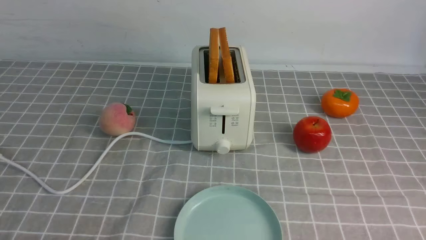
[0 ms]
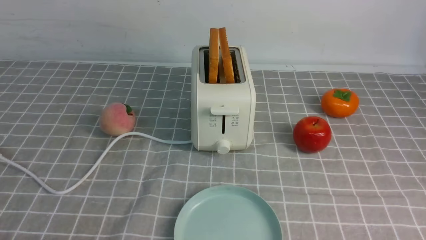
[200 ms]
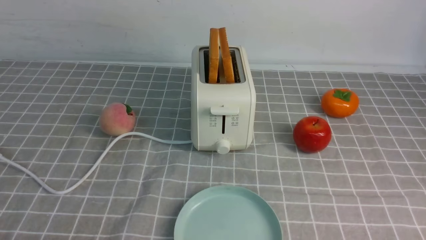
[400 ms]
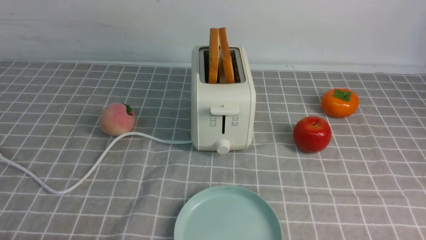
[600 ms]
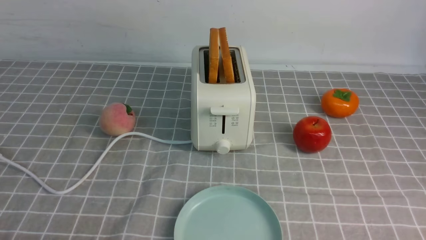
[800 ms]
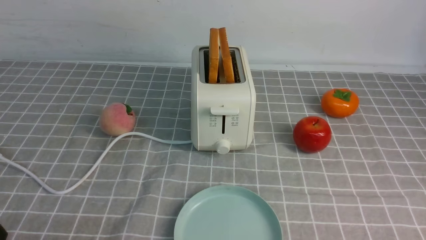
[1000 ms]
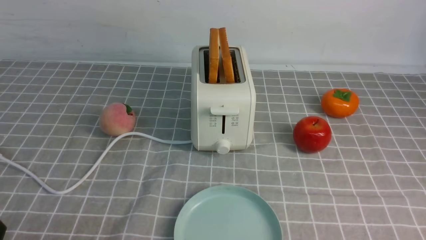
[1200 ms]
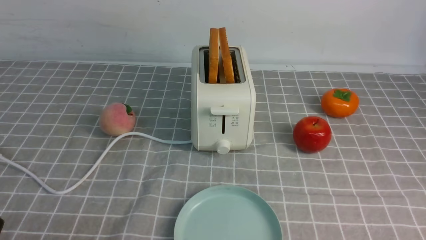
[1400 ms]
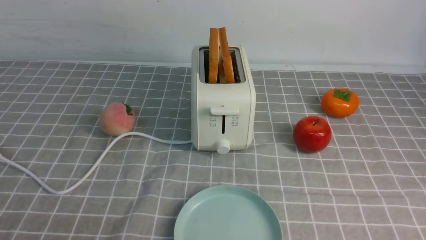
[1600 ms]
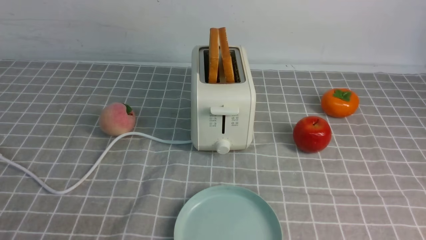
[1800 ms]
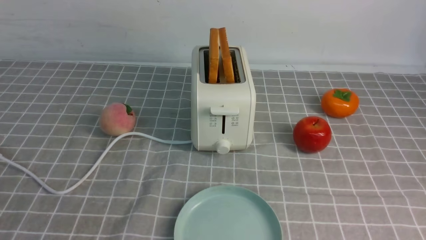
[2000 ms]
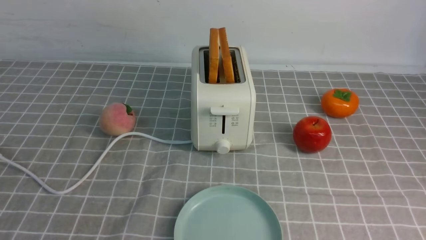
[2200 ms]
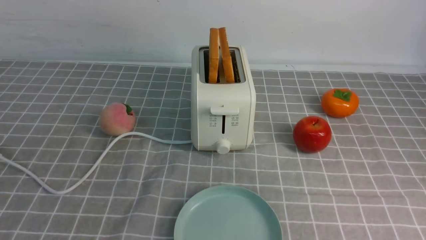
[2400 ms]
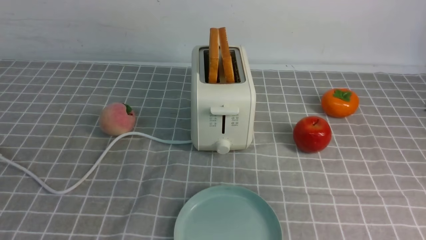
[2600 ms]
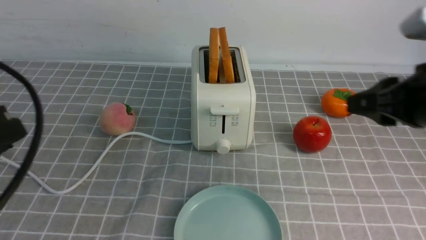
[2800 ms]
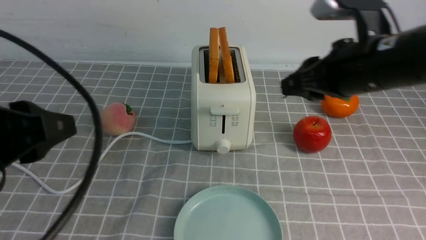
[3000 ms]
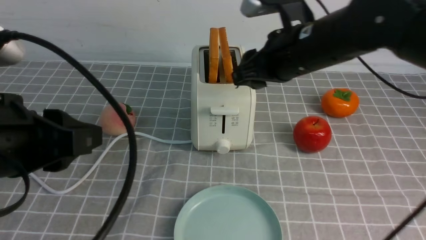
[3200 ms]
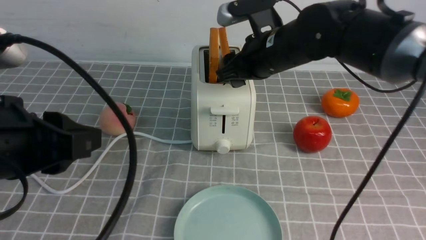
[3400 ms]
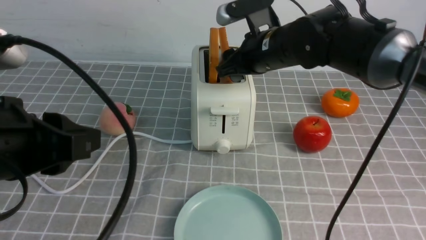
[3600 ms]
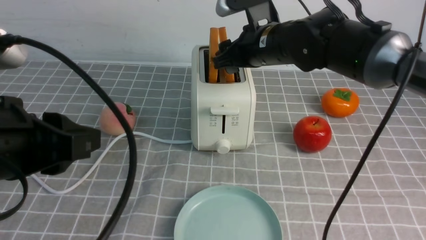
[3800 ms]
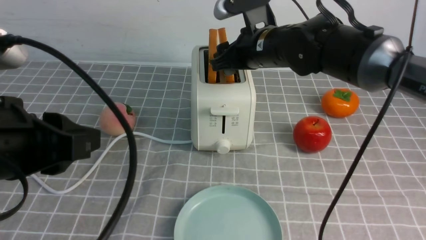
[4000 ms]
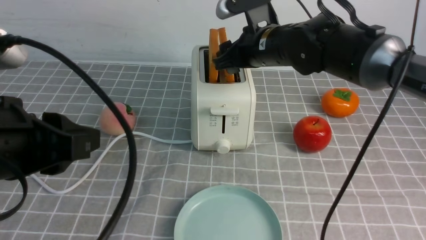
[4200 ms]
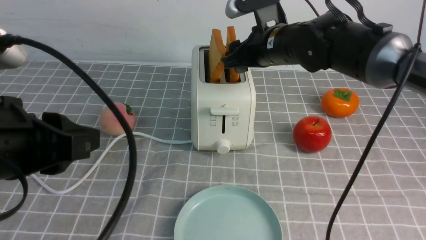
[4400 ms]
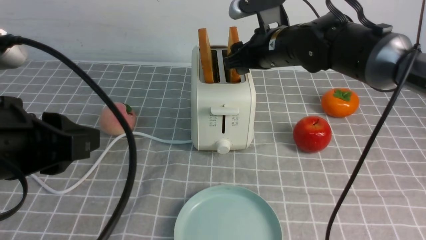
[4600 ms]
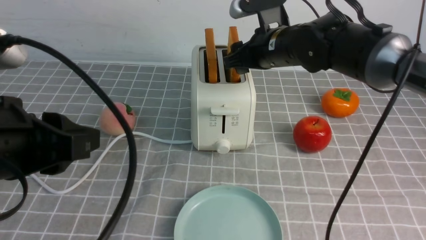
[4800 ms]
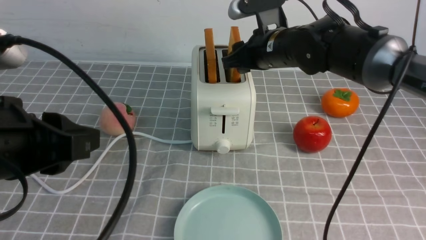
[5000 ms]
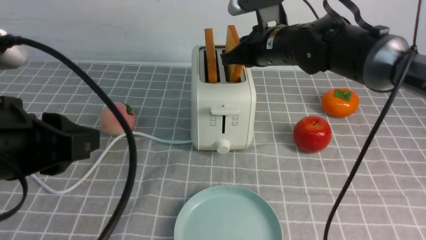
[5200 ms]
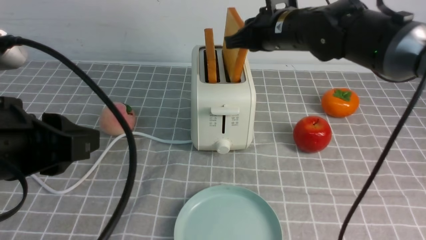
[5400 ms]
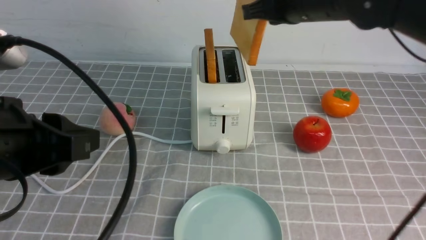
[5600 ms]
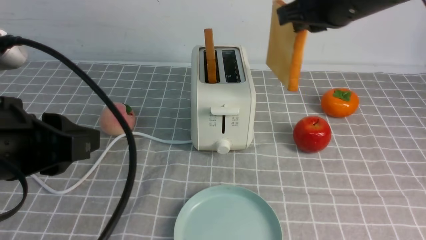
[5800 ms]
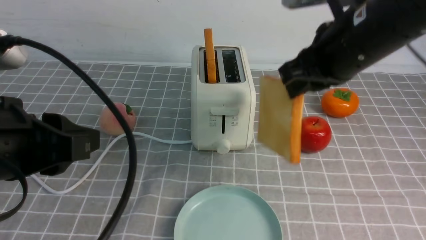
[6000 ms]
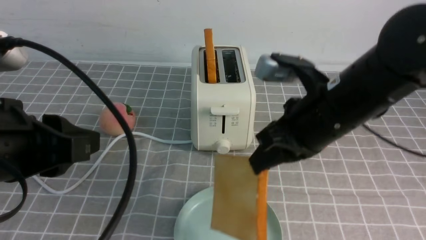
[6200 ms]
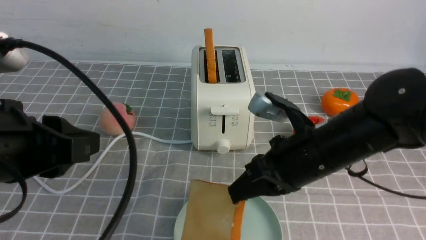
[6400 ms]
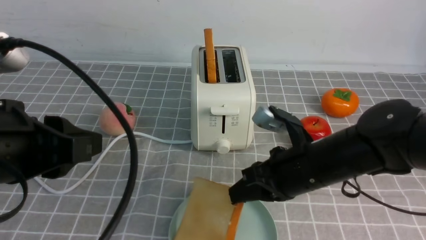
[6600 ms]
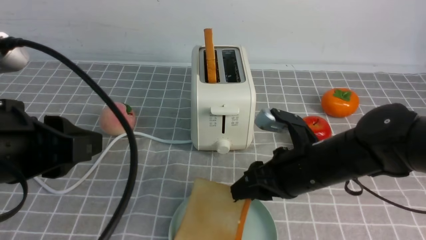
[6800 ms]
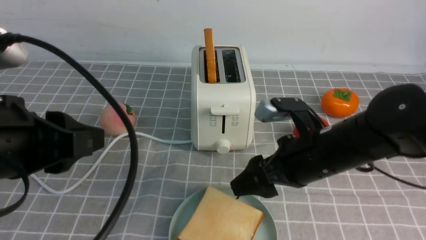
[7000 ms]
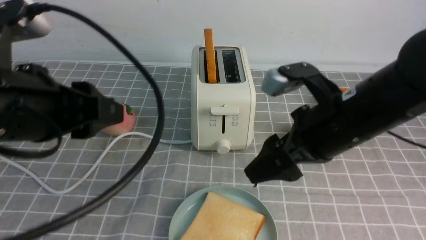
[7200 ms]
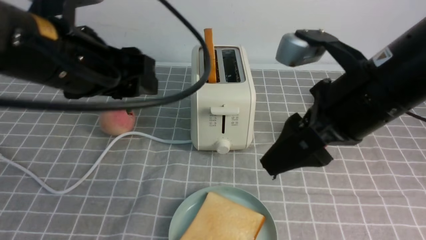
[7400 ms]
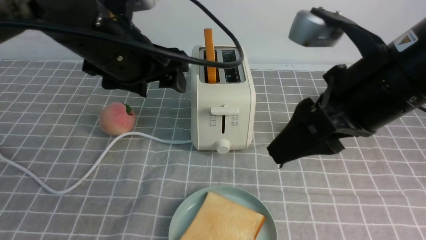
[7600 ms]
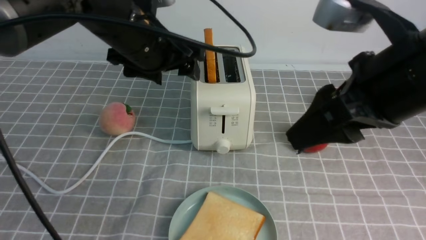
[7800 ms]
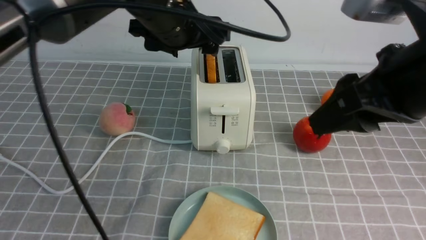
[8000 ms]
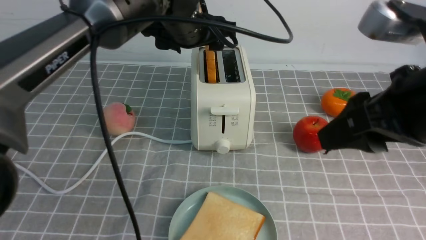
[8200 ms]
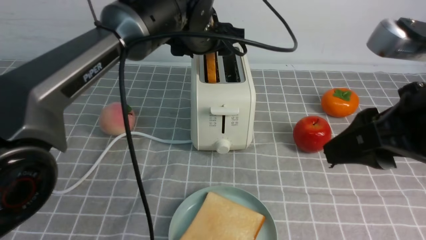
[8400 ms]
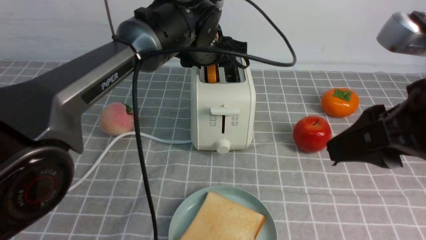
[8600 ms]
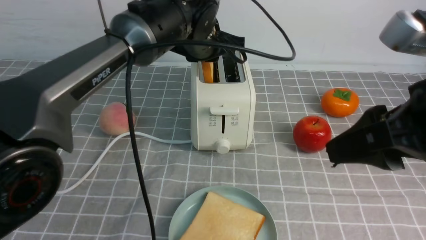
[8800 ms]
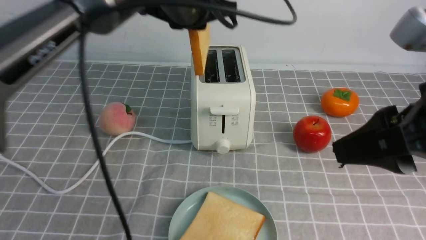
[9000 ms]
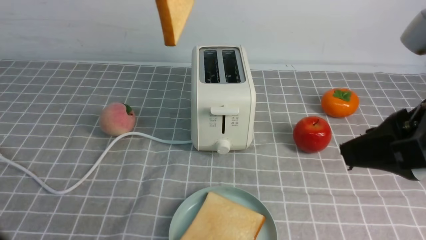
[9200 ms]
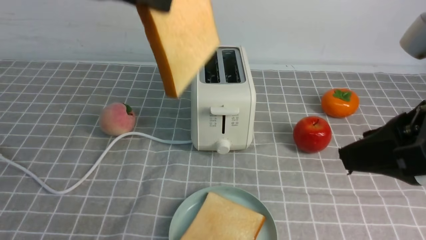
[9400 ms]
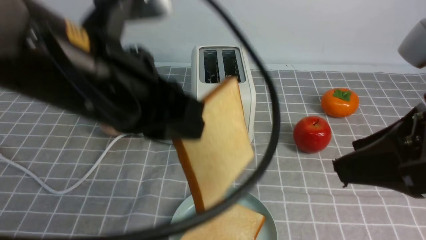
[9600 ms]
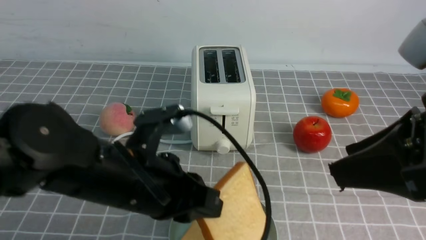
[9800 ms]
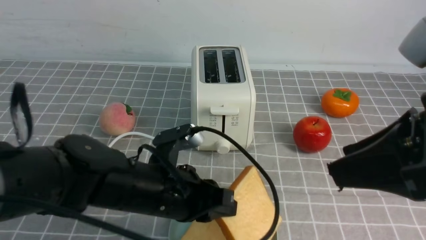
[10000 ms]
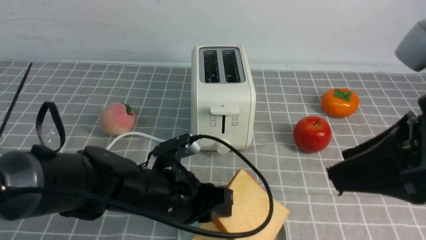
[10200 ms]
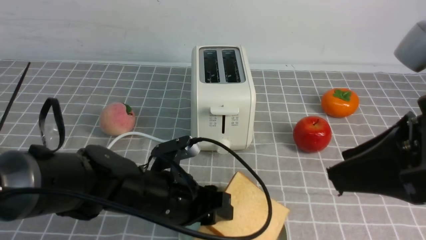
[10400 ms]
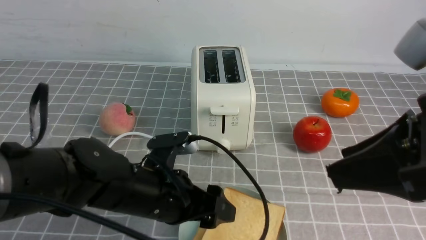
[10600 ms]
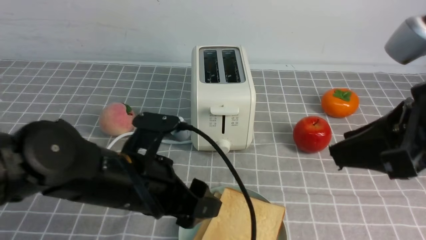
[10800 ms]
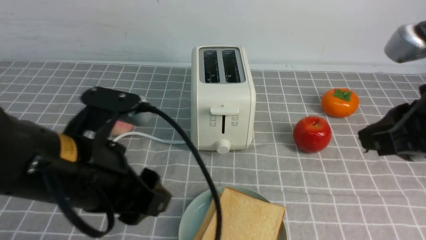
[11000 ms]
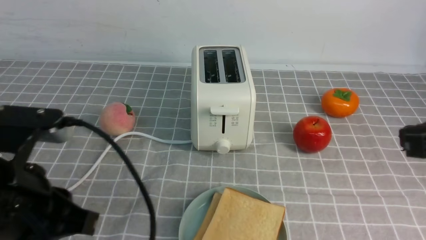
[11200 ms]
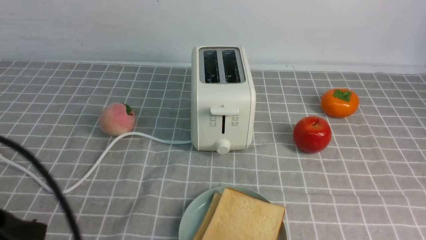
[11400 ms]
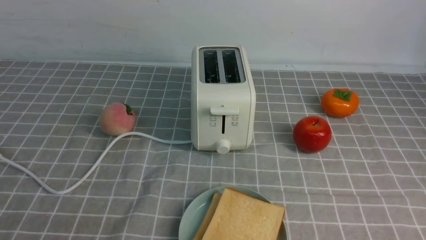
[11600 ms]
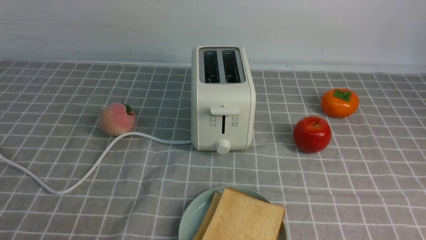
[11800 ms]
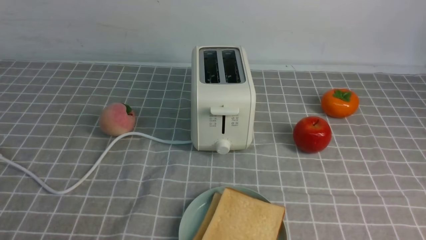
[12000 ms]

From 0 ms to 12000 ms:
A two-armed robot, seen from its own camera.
Task of the whole recording: take toasted bread from bread machine on grey coffee table place on plate.
Step, from 0 ms to 5600 ms: use the right arm to take out a slice of bread.
Step, from 5800 ms to 7200 ms: use the right arm to put a slice of bread into the plate.
Step, from 7400 ms to 9400 ms: use the left arm to take out a slice of bread.
Step, from 9600 ms to 10600 ms: use the left arm to put a slice of bread into the empty plate.
From 1600 ms to 3000 ms: The right gripper shifts roughly 30 cm forward, upward and to the left; the left gripper is displaced upward and forward by some 15 cm.
From 3000 ms to 4400 ms: The right gripper moves forward and to the left, some 20 cm, and opens.
From 4400 ms to 6000 ms: The right gripper is displaced backward, upward and to the right by about 15 cm, and closes its fingers.
From 6000 ms to 7600 ms: The left gripper is displaced forward and to the right by about 15 cm, and opens its fingers; the right gripper moves backward, roughly 10 cm, travels downward and back again, roughly 15 cm each way, and opens its fingers.
From 7600 ms to 9000 ms: The right gripper is displaced backward and to the right by some 10 cm; the left gripper moves forward and to the right, roughly 15 cm, and closes up.
From 9000 ms to 10400 ms: The left gripper shifts some 25 cm downward and backward.
From 10400 ms to 12000 ms: The left gripper travels backward, to the left and upward by about 30 cm, and closes up. Meanwhile the right gripper goes roughly 20 cm downward, to the right and backward, and closes its fingers.
